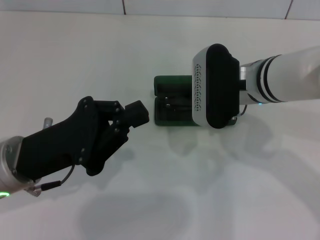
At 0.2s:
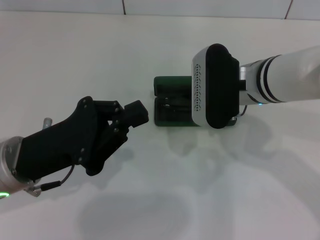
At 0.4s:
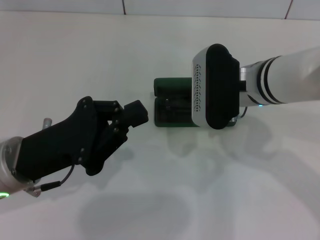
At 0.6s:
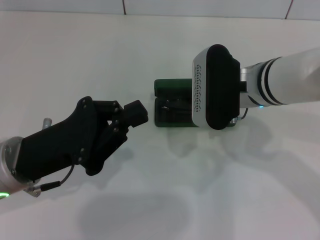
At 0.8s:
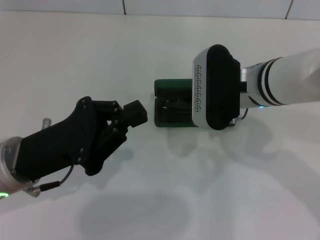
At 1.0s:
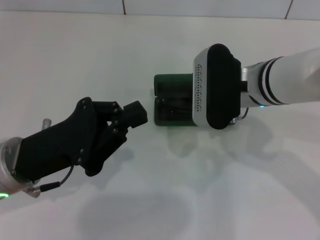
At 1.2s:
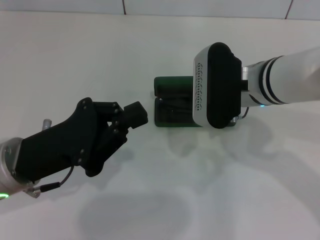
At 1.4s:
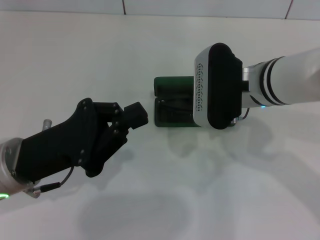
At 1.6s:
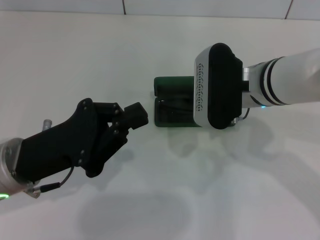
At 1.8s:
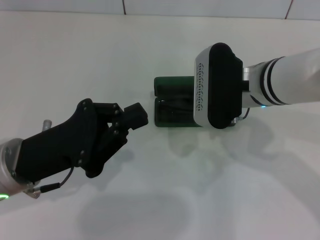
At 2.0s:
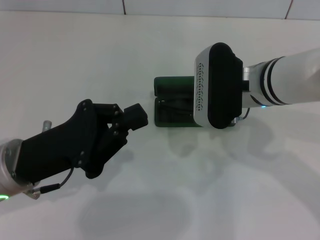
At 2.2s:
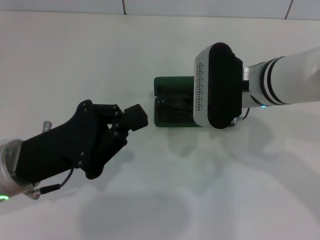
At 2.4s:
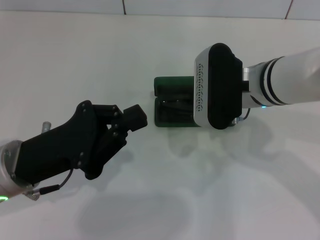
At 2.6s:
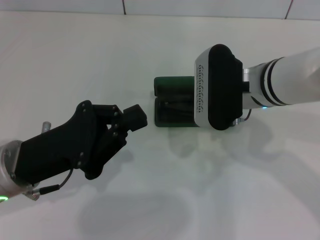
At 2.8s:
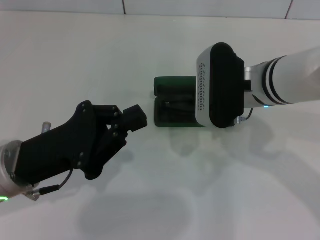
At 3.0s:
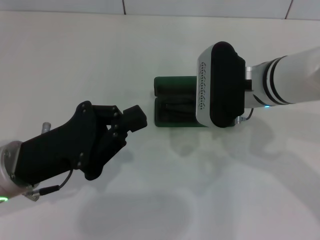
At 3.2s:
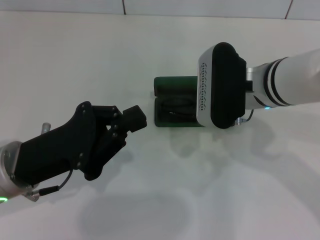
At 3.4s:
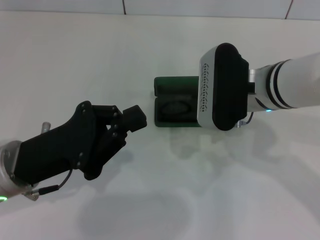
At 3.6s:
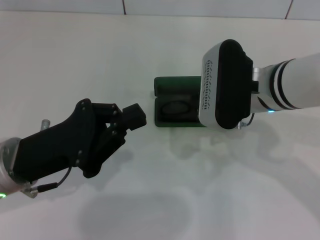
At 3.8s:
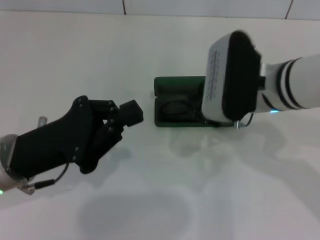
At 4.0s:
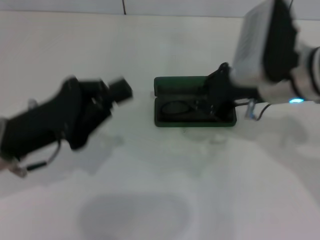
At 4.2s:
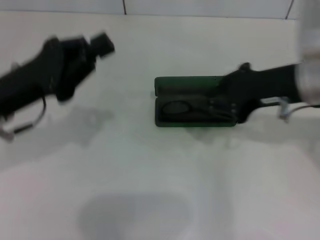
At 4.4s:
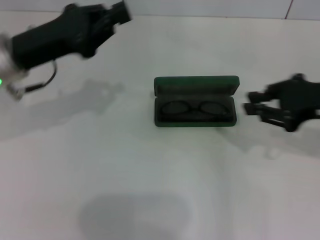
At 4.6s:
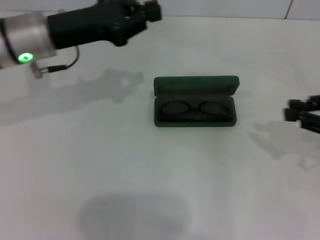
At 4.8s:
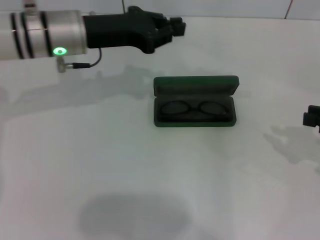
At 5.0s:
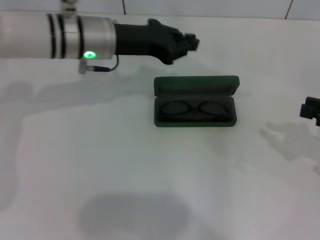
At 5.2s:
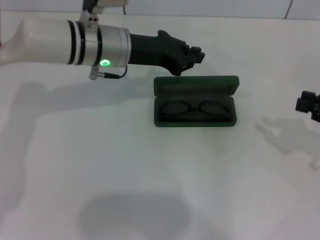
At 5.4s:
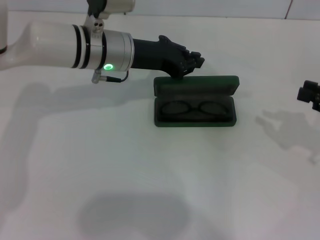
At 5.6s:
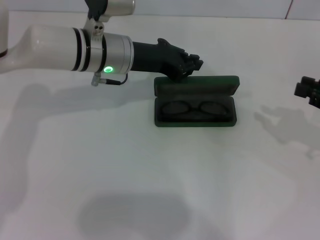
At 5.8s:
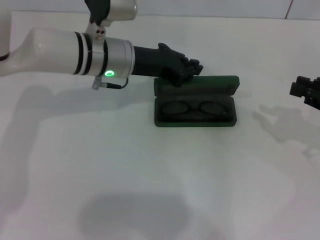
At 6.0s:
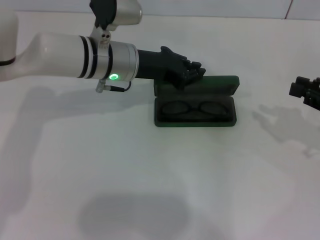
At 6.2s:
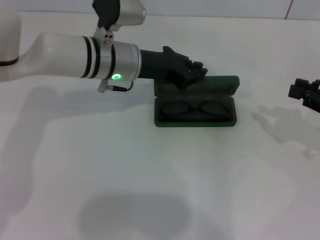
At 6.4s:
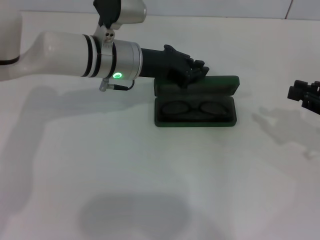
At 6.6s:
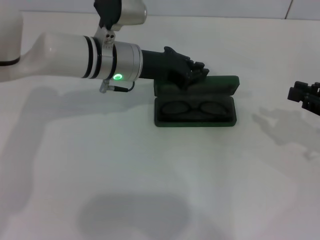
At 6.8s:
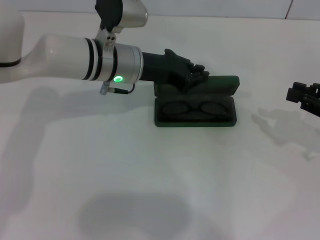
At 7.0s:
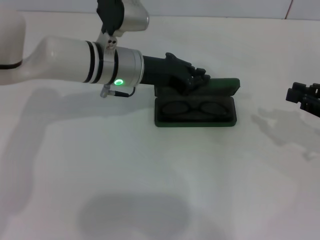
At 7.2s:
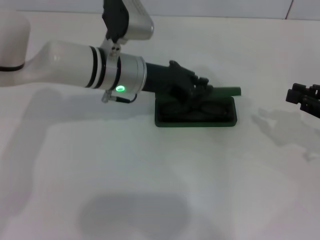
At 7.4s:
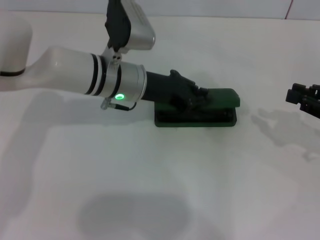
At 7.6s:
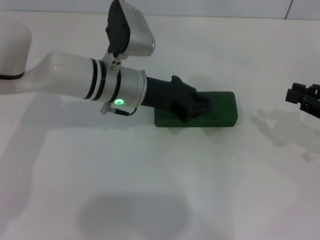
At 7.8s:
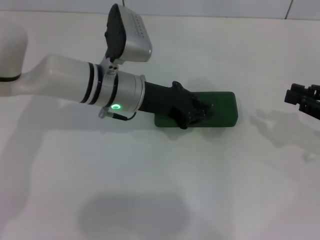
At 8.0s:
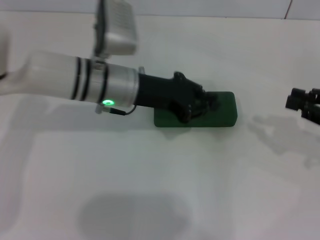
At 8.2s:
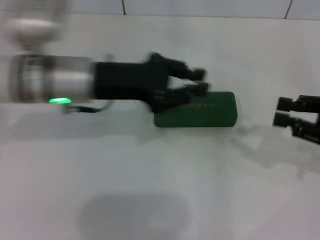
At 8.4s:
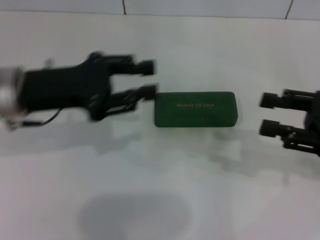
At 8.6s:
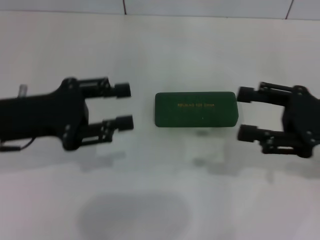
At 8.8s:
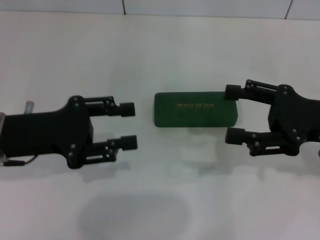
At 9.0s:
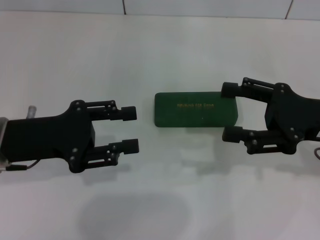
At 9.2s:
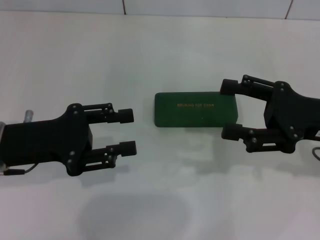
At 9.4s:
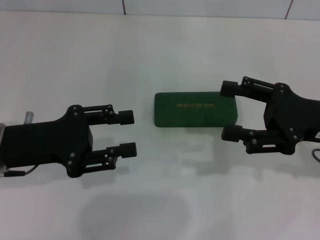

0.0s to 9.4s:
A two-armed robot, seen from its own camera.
Step, 0.0s to 3.6s: Put the glasses into the case with your right hand.
Step, 3.8s to 8.0s: Close the glasses case with your left hand.
0.0s to 3.2s: Neither gripper changes place.
3.2s to 4.8s: The left gripper shifts approximately 20 cm forward. Meanwhile the right gripper goes some 25 cm to the right.
4.8s to 6.2s: The left gripper travels to the right by some 5 cm.
6.2s to 7.8s: The grippers stay close to where they were, moving slightly.
7.8s to 9.4s: The left gripper moves to the left and backward, roughly 20 cm, and opens up, while the right gripper is displaced to the left by some 10 cm, and opens.

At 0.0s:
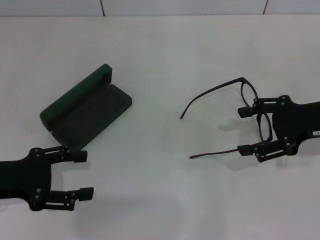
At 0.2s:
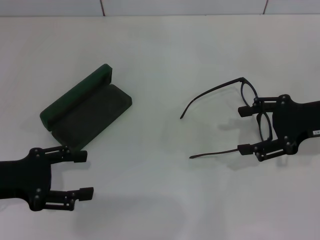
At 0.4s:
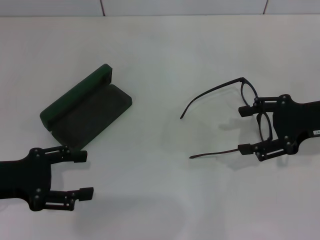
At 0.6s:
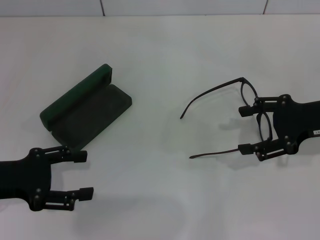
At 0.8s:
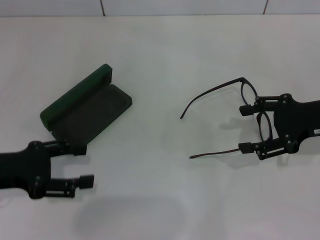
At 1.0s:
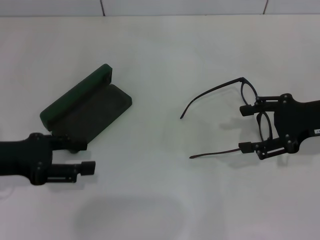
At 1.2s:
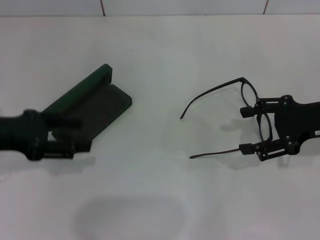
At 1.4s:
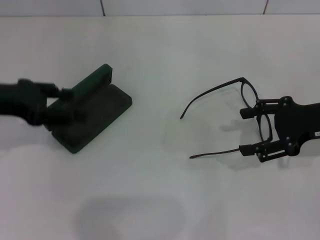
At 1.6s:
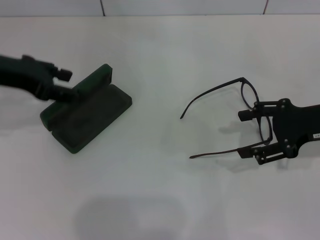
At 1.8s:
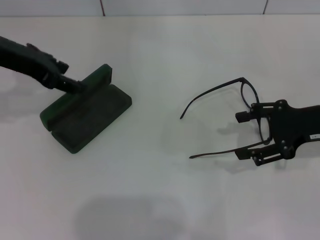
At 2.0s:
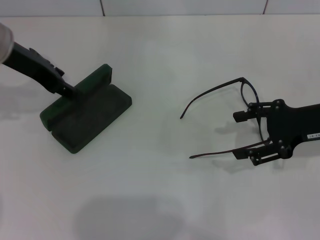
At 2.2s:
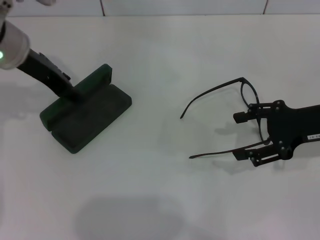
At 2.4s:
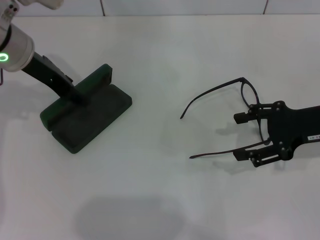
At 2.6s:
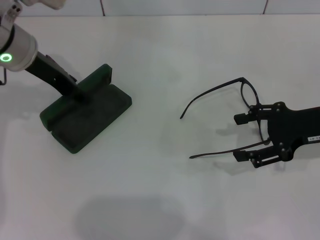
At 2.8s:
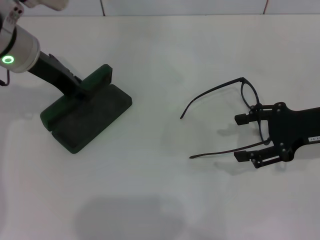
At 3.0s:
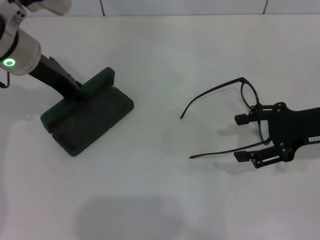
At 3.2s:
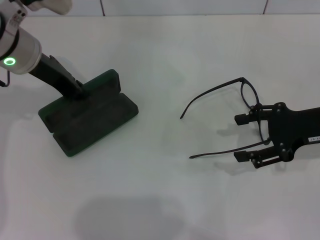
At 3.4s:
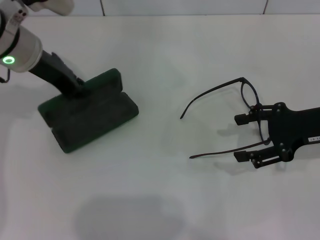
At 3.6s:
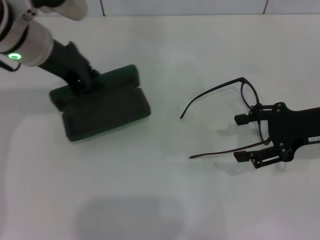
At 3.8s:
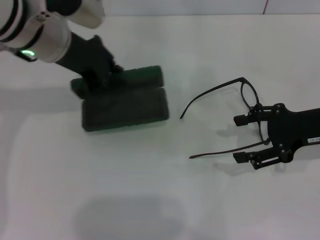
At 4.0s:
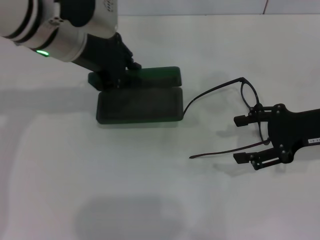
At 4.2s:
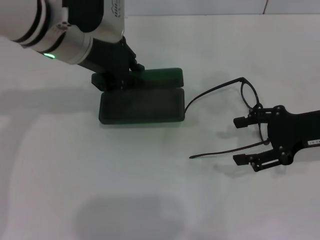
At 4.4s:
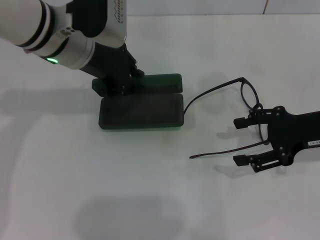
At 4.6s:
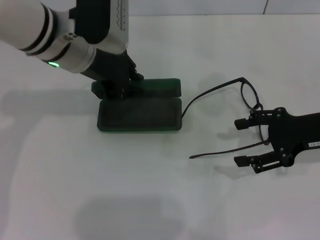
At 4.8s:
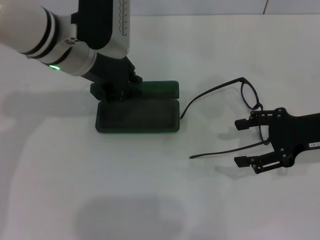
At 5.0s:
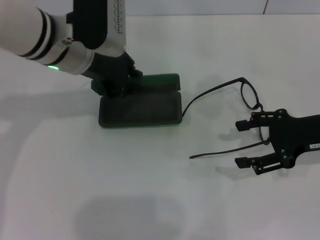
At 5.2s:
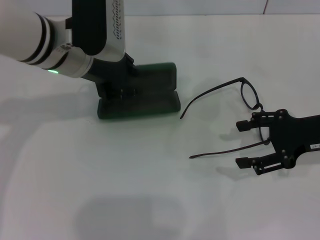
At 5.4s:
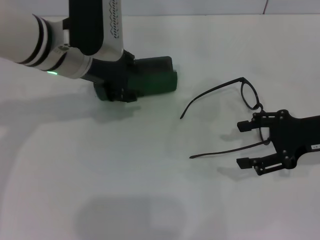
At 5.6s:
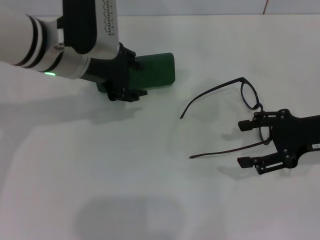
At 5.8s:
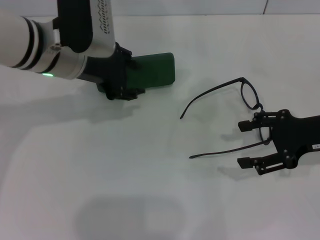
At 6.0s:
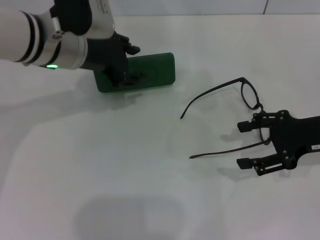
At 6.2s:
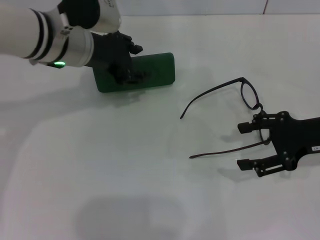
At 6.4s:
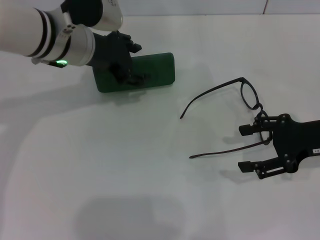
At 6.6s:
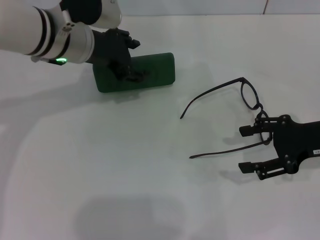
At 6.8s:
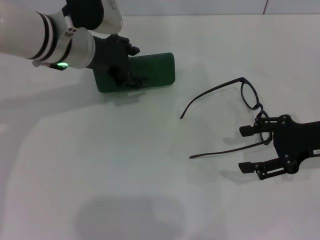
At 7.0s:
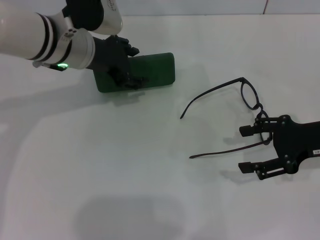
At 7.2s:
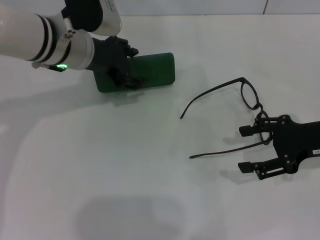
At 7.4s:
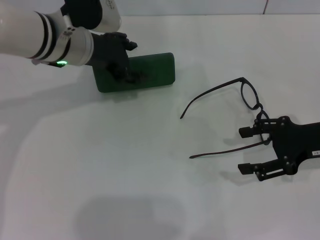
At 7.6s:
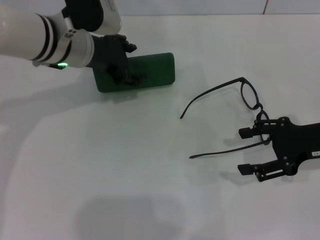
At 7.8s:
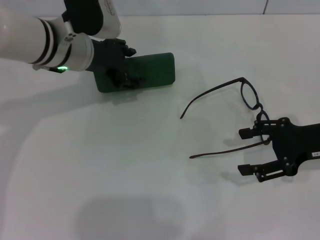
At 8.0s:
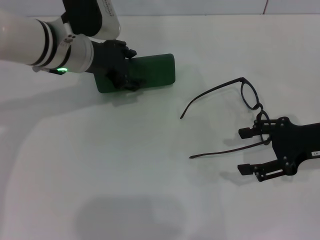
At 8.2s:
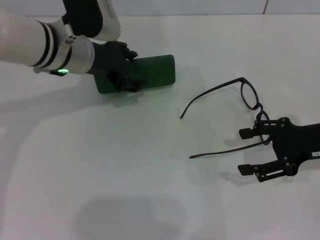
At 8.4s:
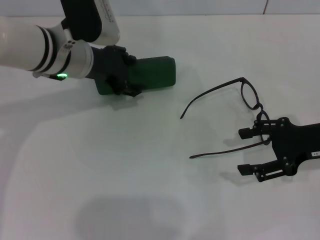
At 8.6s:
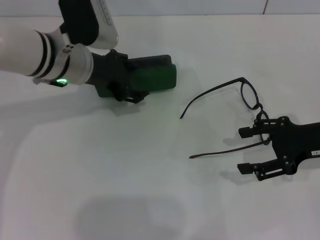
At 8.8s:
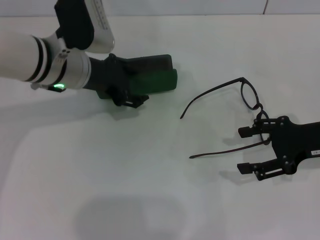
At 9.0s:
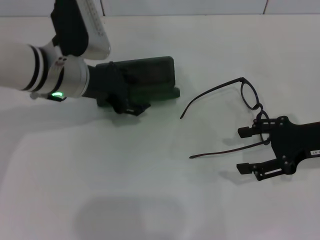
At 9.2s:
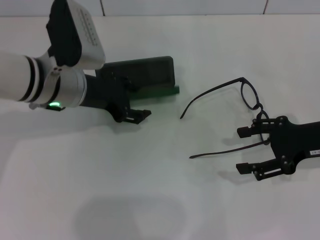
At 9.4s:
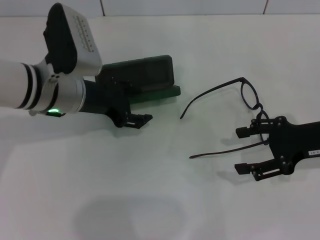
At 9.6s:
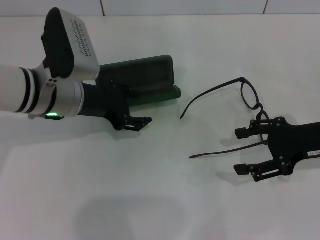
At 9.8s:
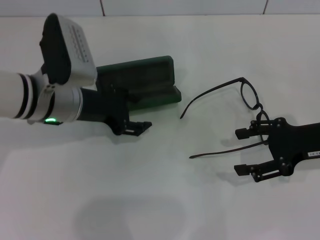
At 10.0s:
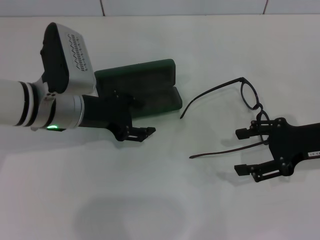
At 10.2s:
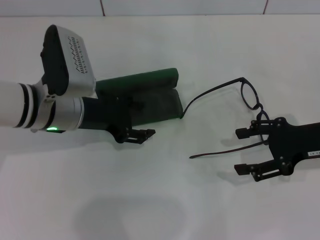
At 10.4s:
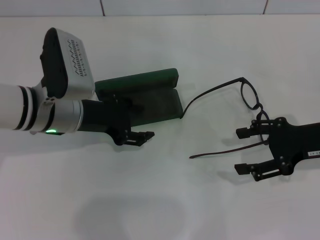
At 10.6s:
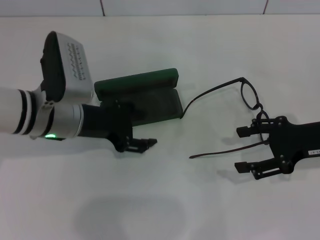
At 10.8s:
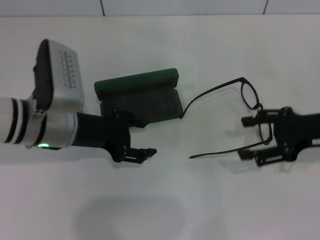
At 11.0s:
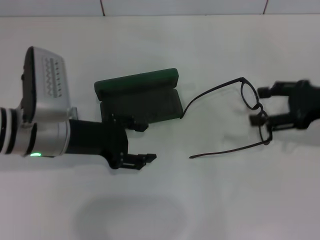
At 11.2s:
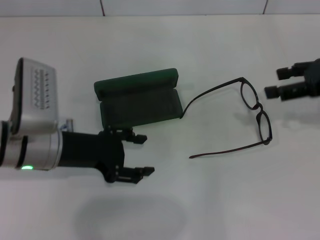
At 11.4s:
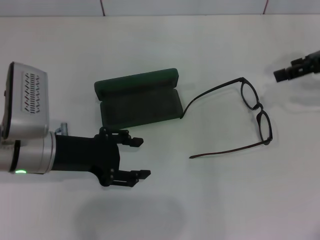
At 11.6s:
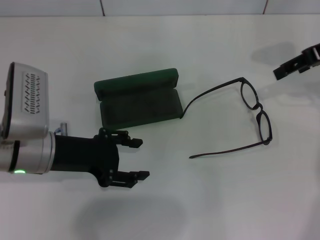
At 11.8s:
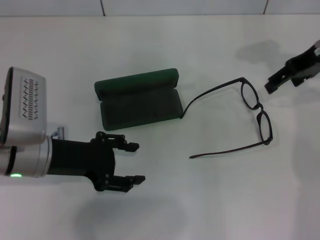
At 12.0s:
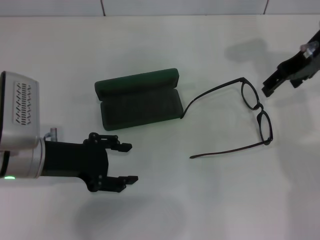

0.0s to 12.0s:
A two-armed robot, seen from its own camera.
Step, 0.0s to 2.8s: Grab the glasses case with your left hand.
Step, 3.2s to 10.8s: Place the glasses case in the center of the table with your left hand.
0.0s to 1.6s: The left gripper is displaced upward and forward by approximately 15 cm.
1.6s to 3.0s: The left gripper moves to the right and forward, roughly 10 cm.
3.0s to 4.4s: The left gripper moves to the right, roughly 5 cm.
4.4s to 6.0s: The left gripper opens its fingers.
6.0s to 9.0s: The grippers make only small movements.
9.0s to 10.4s: The left gripper ends up about 5 cm from where it was.
10.4s to 12.0s: The left gripper heads backward, covering roughly 5 cm. The right gripper goes some 15 cm forward, upward and to the left.

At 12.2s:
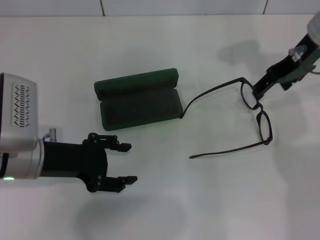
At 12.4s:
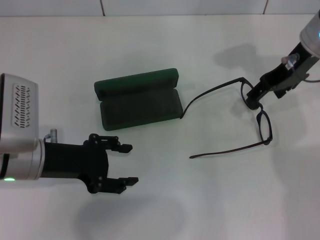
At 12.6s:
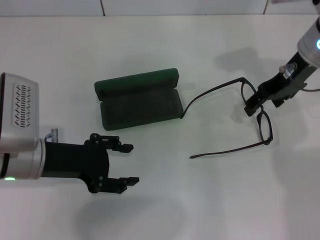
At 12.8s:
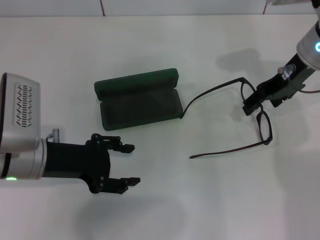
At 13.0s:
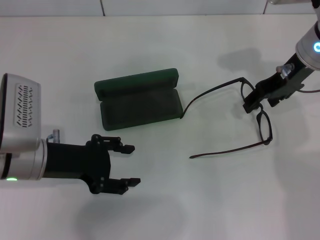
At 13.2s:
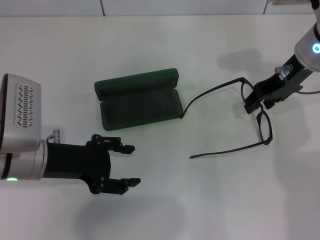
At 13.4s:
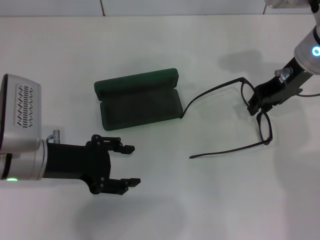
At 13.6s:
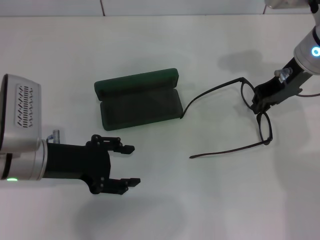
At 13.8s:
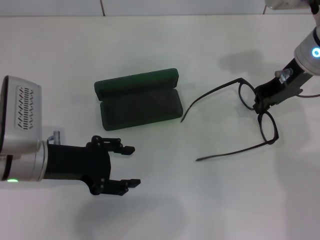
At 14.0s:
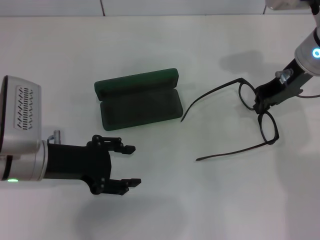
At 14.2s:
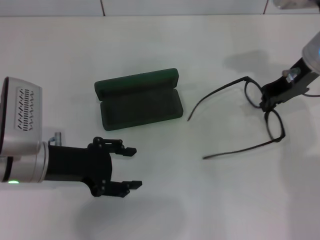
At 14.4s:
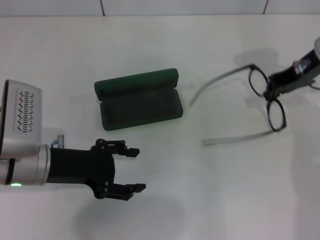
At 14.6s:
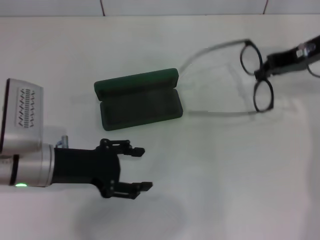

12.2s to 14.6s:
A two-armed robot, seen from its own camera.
Step, 12.2s to 13.8s: Grab the eyeglass frame with your right hand.
12.2s to 13.4s: The right gripper closes.
13.4s to 14.6s: The right gripper is displaced to the right by approximately 5 cm, and closes its fingers.
